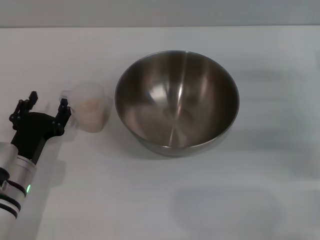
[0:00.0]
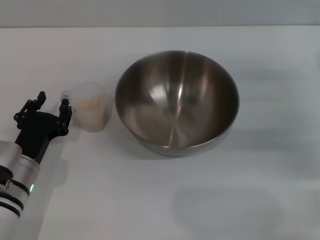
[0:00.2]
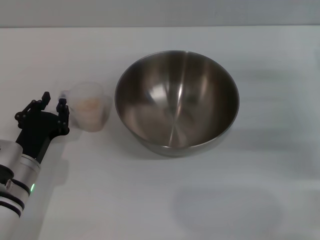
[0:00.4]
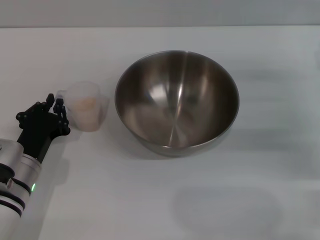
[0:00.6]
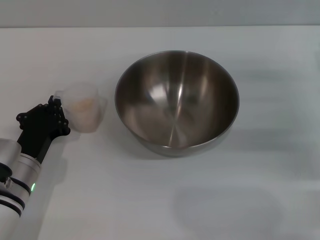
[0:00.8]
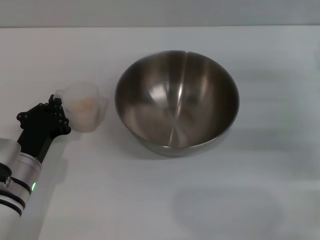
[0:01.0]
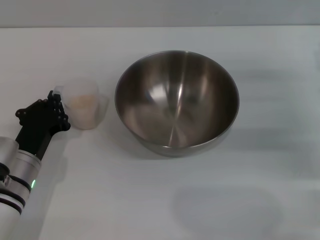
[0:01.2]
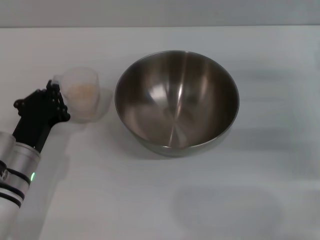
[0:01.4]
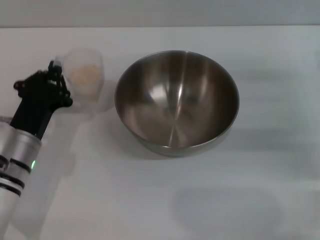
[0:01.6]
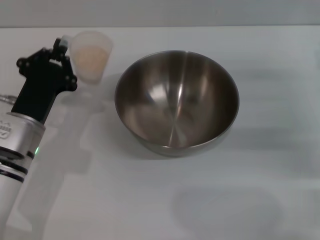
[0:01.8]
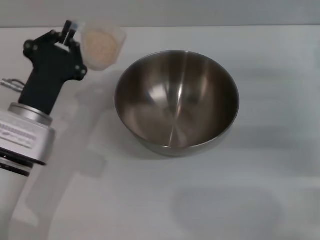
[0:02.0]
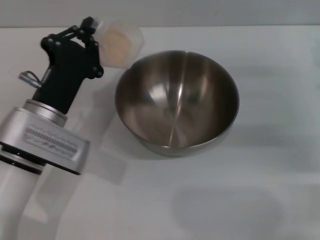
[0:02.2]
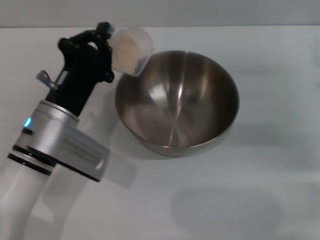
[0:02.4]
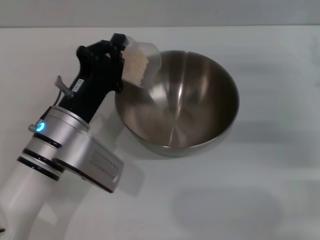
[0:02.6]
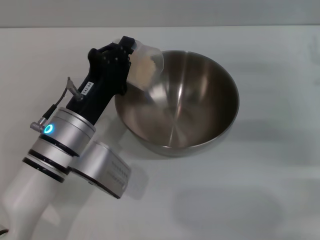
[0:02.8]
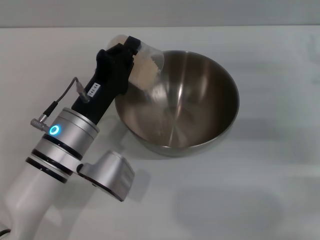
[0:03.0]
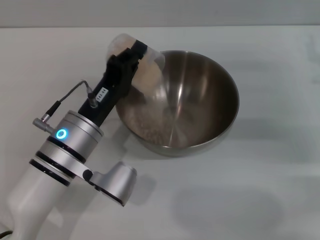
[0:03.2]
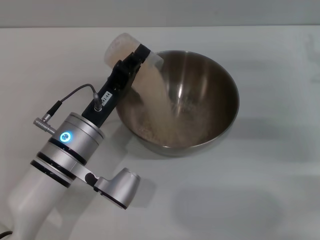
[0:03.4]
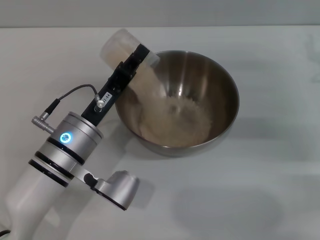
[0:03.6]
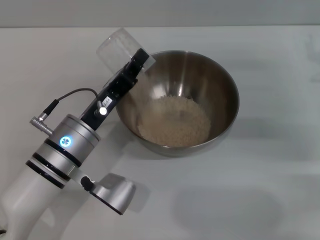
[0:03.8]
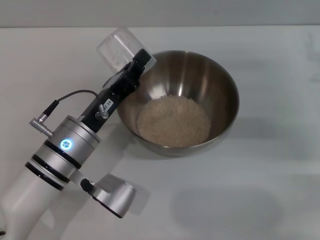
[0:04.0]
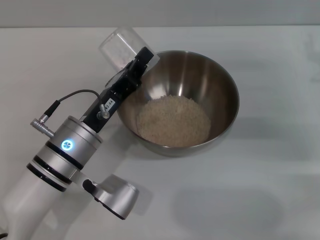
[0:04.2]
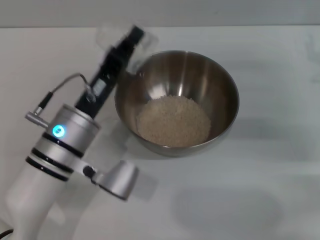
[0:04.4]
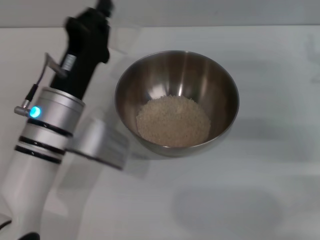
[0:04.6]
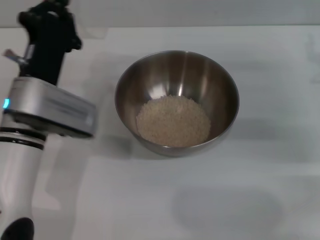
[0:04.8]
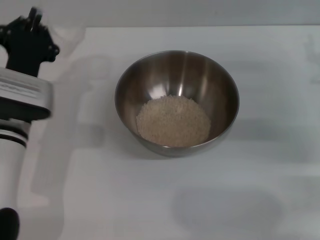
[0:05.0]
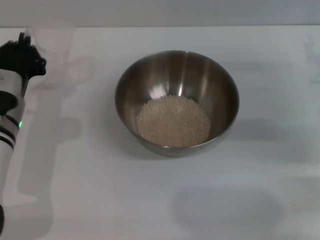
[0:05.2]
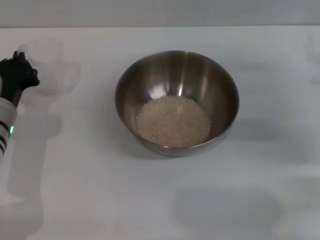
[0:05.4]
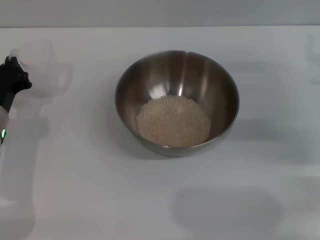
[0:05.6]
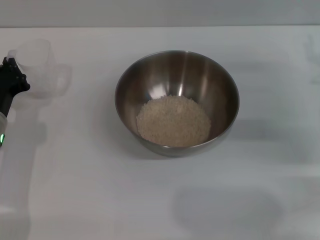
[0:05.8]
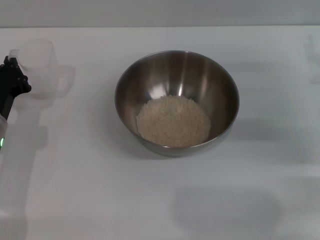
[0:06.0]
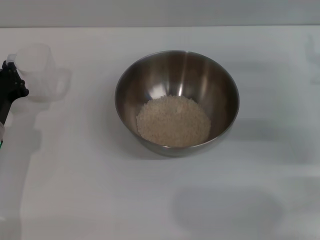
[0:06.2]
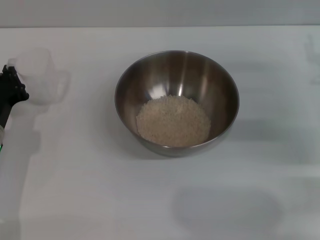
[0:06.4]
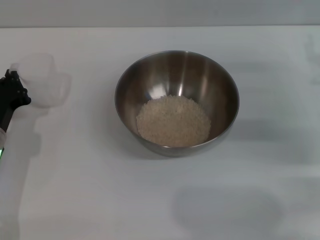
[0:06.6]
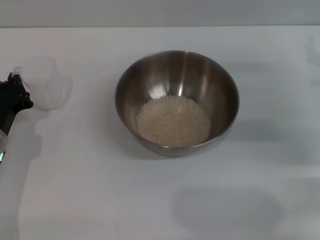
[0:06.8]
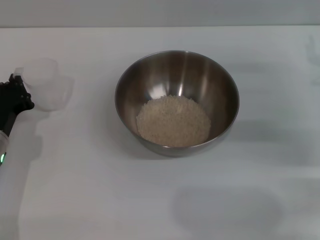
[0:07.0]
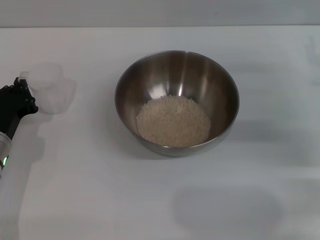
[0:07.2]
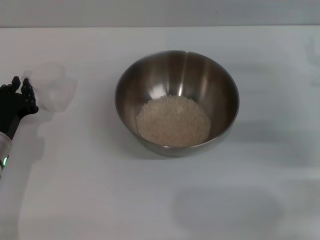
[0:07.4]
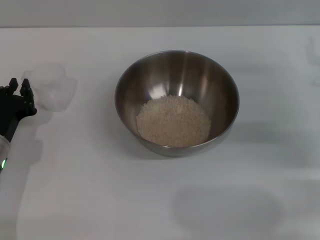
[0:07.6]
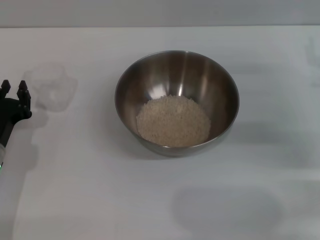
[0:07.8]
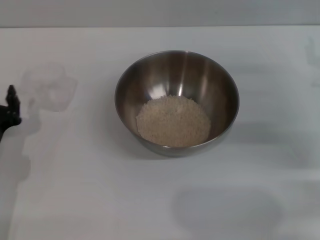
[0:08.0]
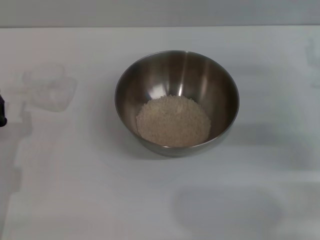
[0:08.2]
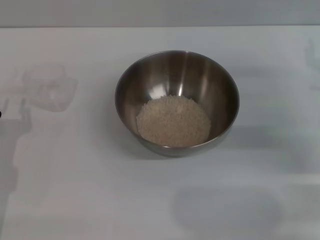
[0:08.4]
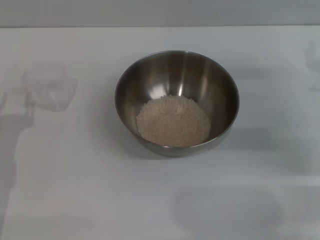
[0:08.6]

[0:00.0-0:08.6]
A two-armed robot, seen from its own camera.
Task of the whole recording: Place the bowl in the middle of the table with one hand and pour the rice from the grain cup into it with the other hand.
Step, 0:02.0 to 0:04.2: Pour the rice from the cup into the bowl with the left gripper.
Step, 0:04.6 to 0:08.0: Place the cup on the table with the left gripper.
0:00.0 to 0:01.4: The left gripper closes its fingers.
0:01.4 to 0:02.8: The left gripper goes approximately 5 cm to the right.
0:04.4 to 0:05.8: The left gripper is displaced to the left by roughly 15 cm.
0:05.8 to 0:07.2: There are only small adjustments of the grippers.
0:07.2 to 0:08.6: The left gripper changes place by approximately 5 cm, and opens.
